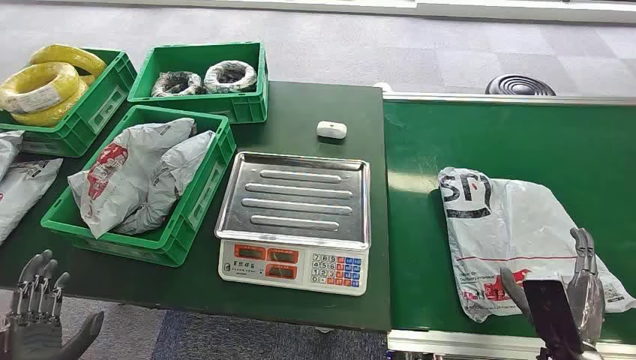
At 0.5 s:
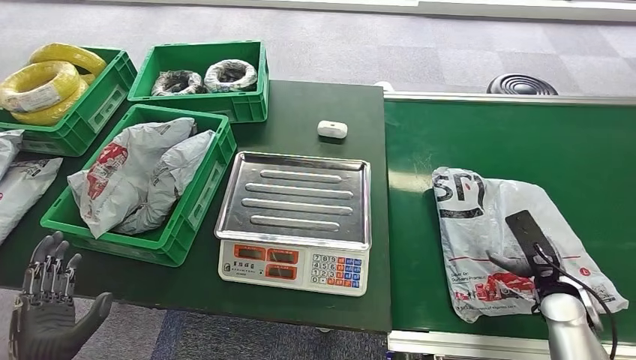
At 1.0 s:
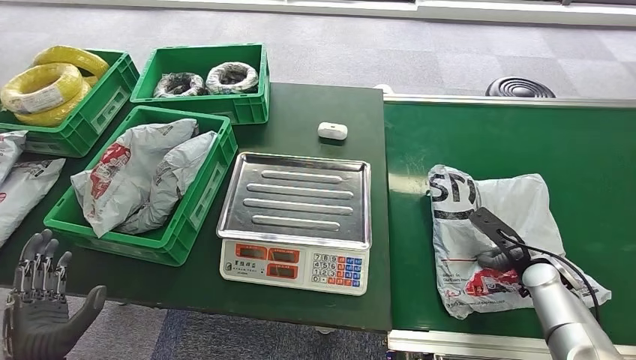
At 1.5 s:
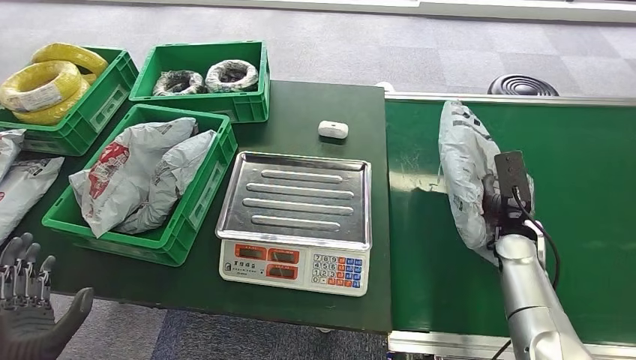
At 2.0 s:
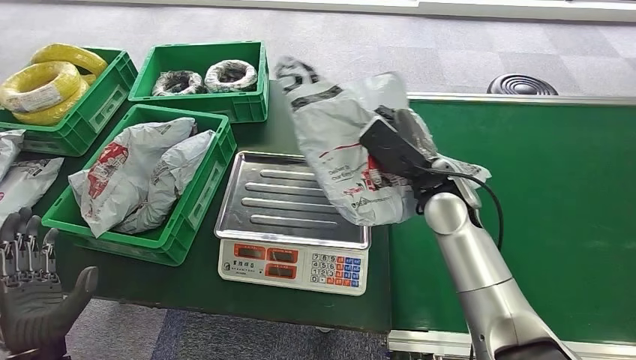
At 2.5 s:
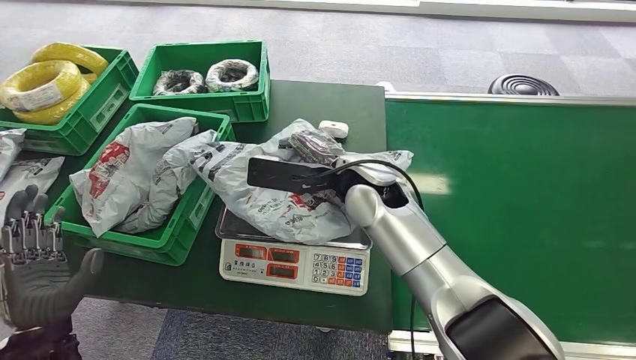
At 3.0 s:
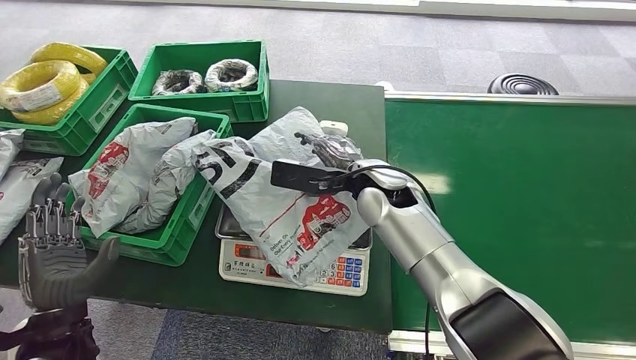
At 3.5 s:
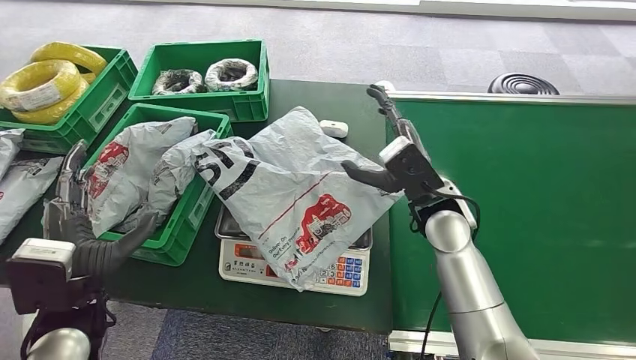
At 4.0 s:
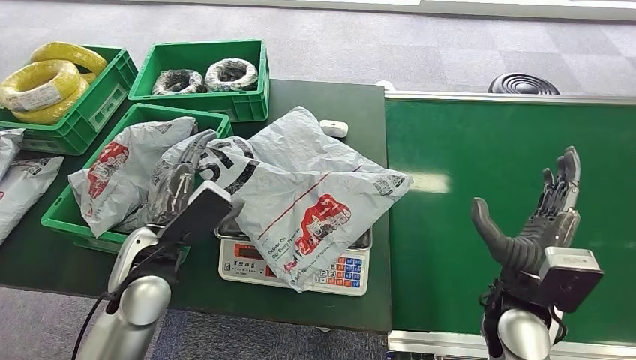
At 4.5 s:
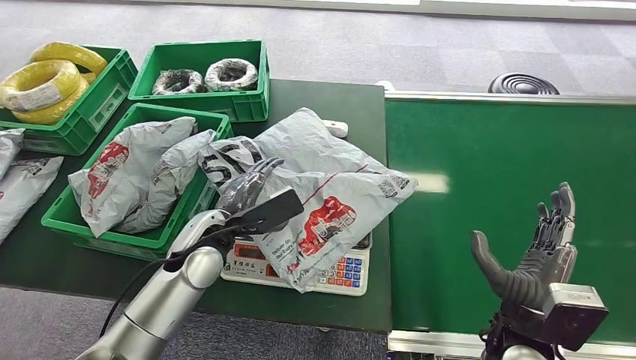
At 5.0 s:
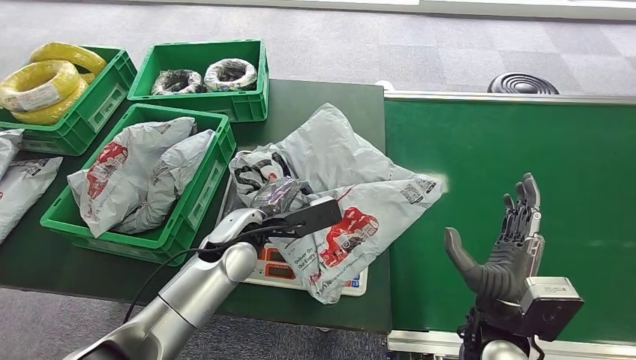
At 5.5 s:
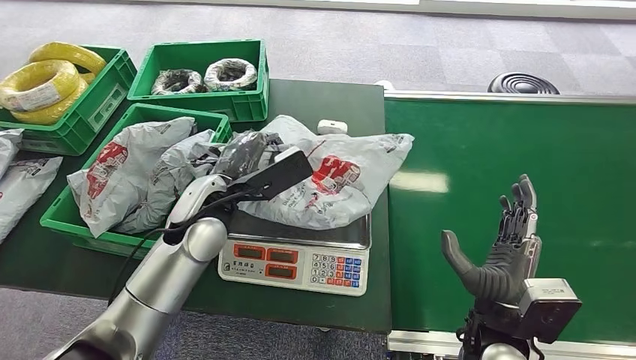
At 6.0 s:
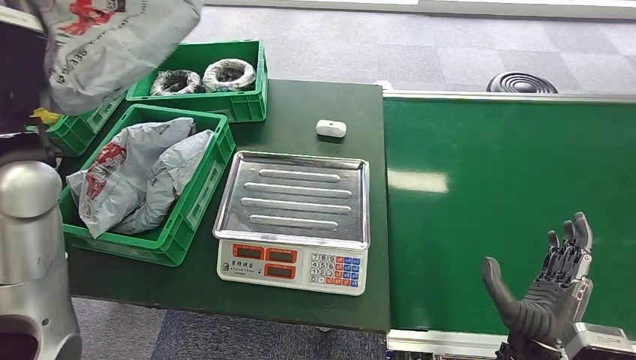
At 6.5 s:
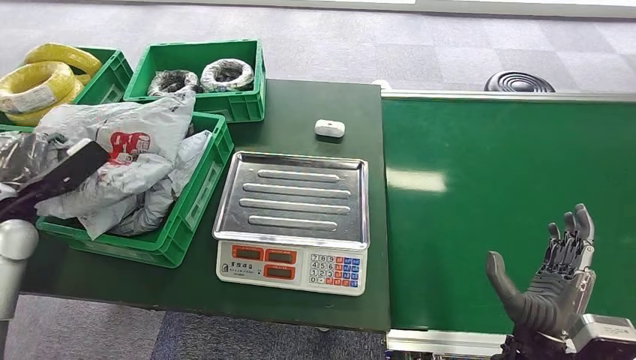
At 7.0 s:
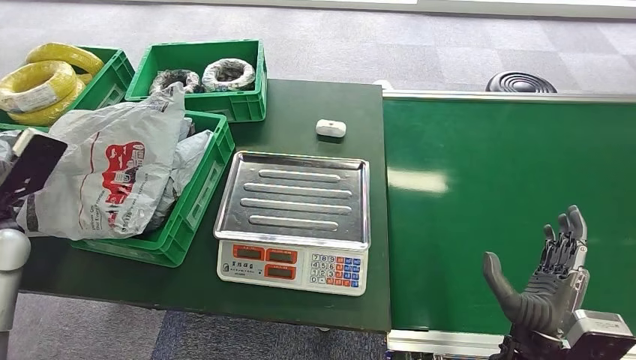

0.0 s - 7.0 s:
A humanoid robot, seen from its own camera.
Step, 0.0 s - 1.5 s: Pick up the package from the conveyor belt.
Step, 2.0 s - 3.0 s: Place the package onto the inbound machine.
Step, 4.0 s - 5.5 s: Pick up the package from the inbound machine.
Step, 6.5 s - 7.0 s: Place the package into the parcel locker.
